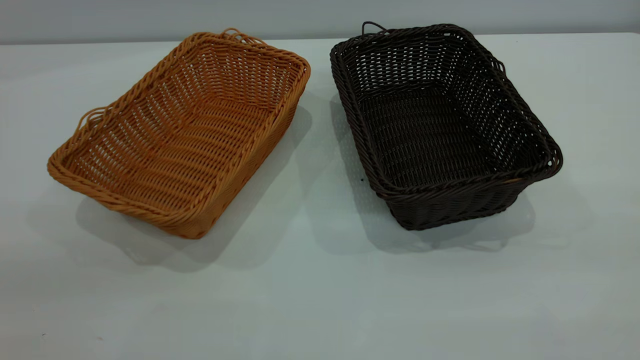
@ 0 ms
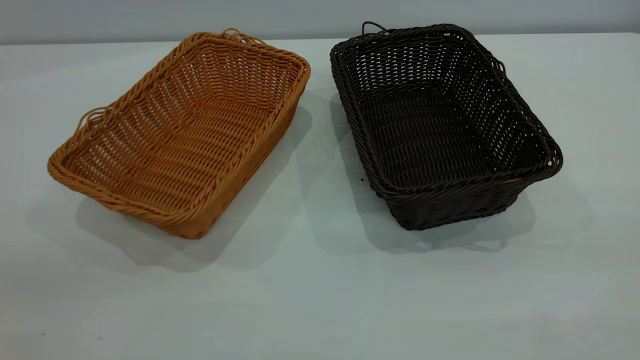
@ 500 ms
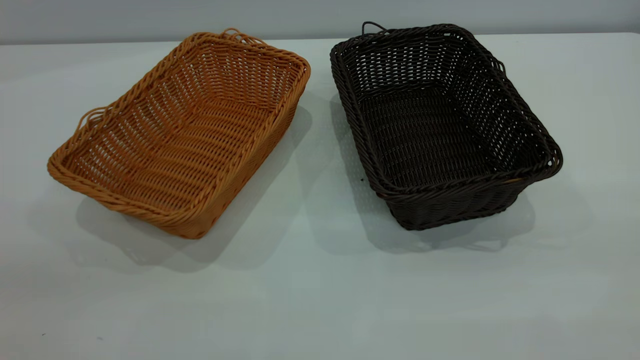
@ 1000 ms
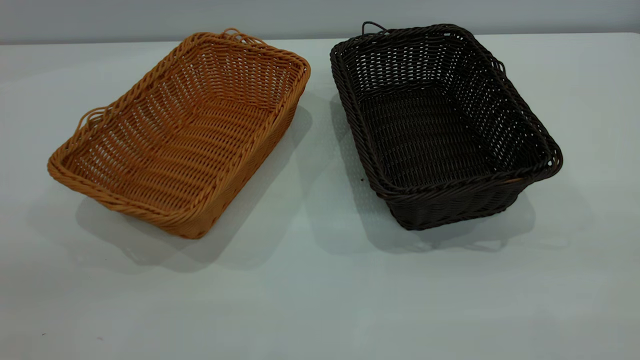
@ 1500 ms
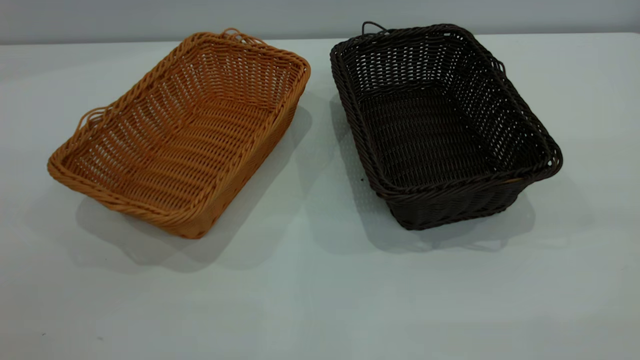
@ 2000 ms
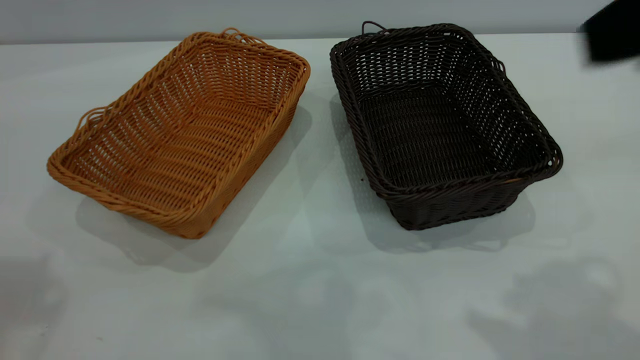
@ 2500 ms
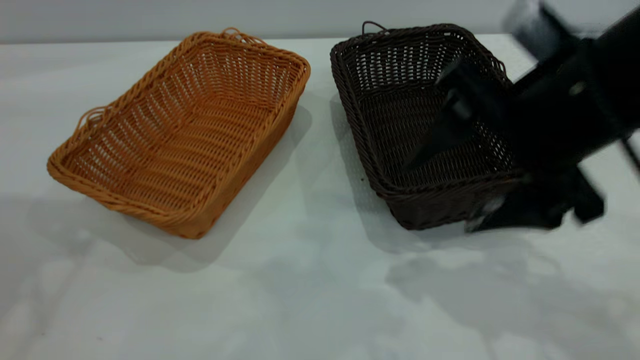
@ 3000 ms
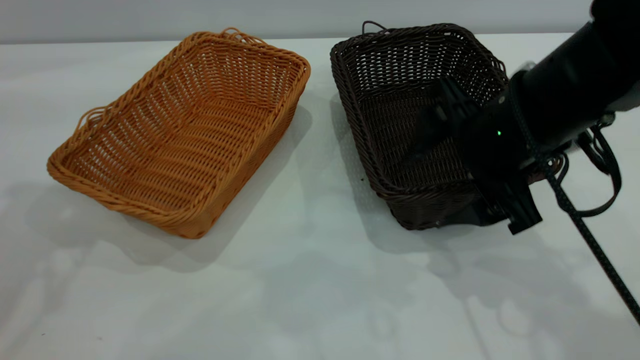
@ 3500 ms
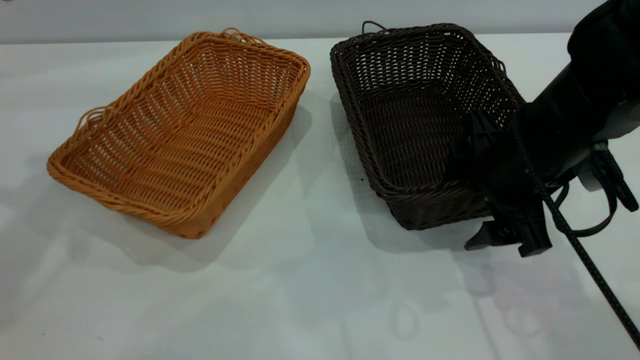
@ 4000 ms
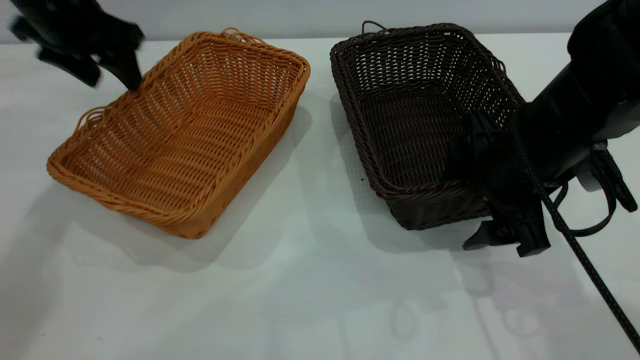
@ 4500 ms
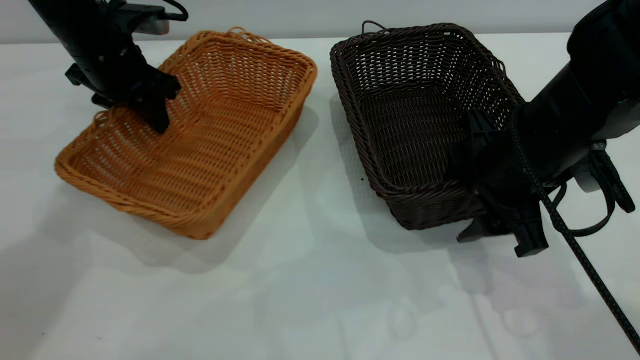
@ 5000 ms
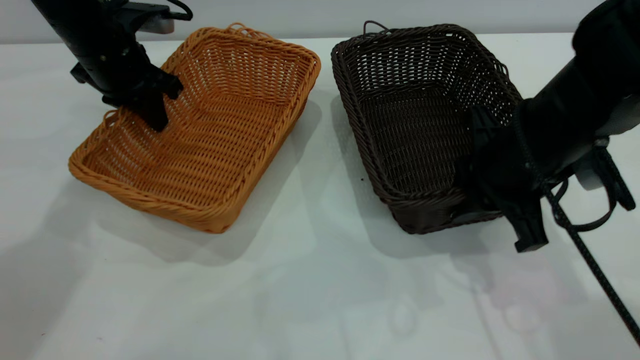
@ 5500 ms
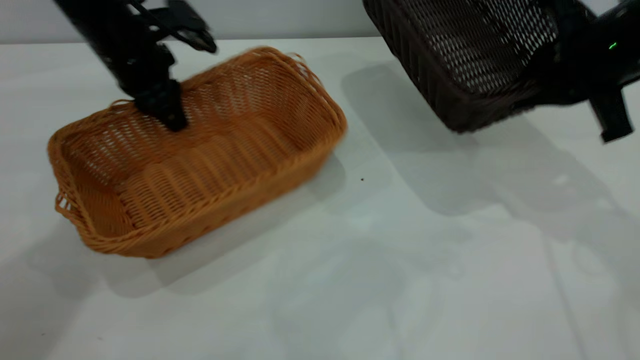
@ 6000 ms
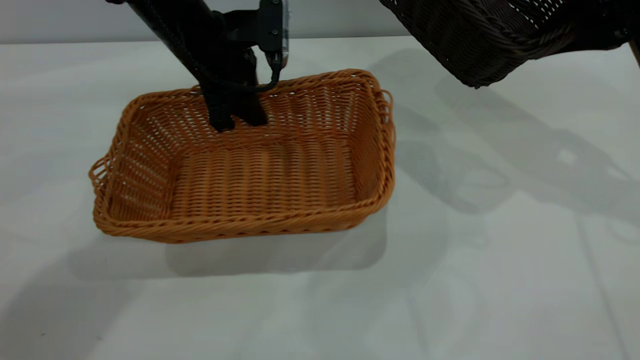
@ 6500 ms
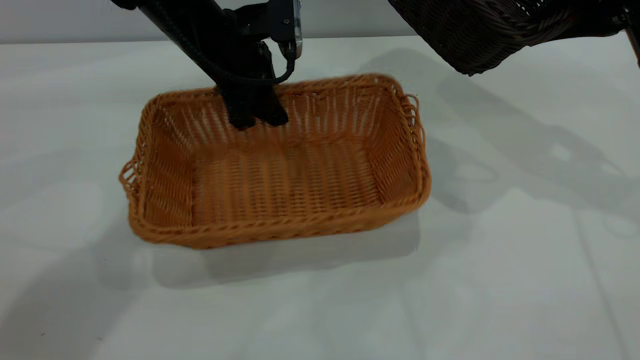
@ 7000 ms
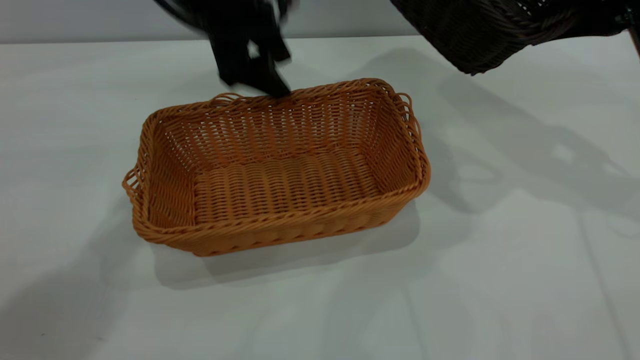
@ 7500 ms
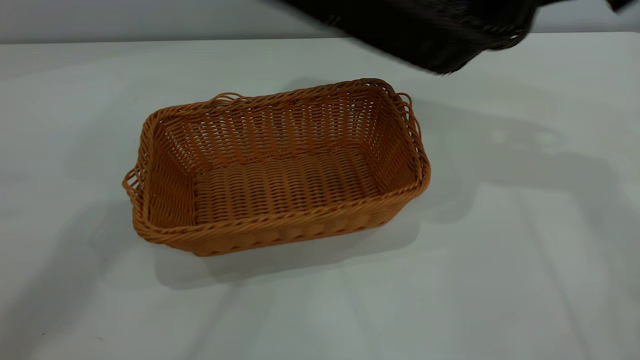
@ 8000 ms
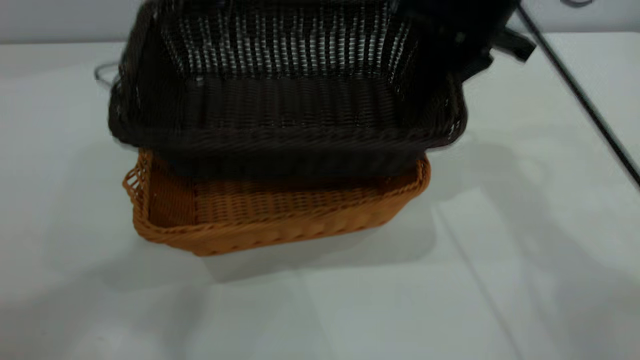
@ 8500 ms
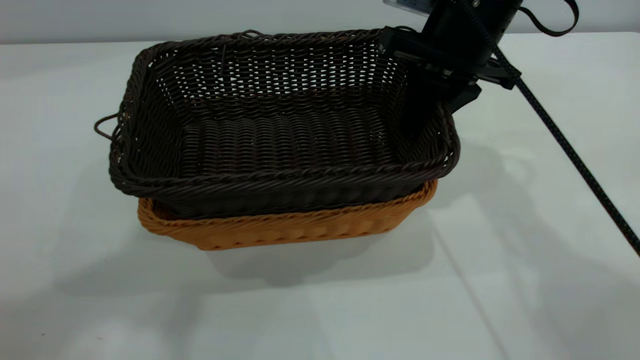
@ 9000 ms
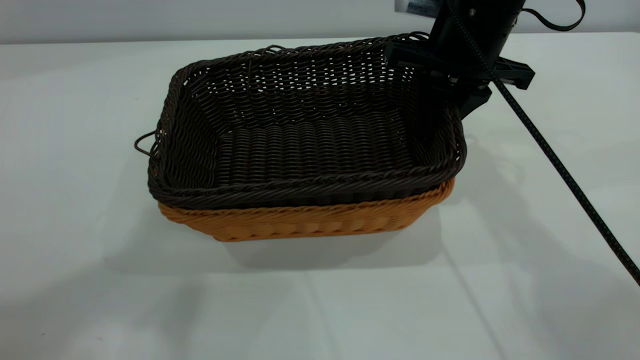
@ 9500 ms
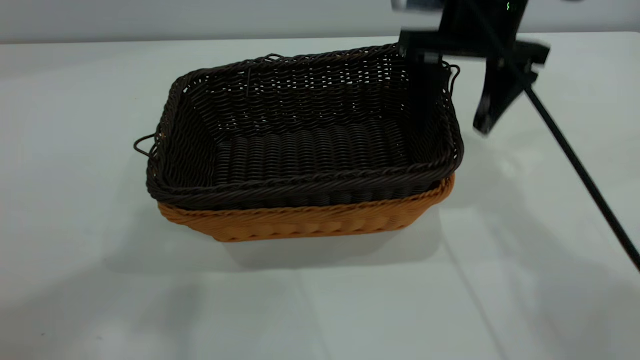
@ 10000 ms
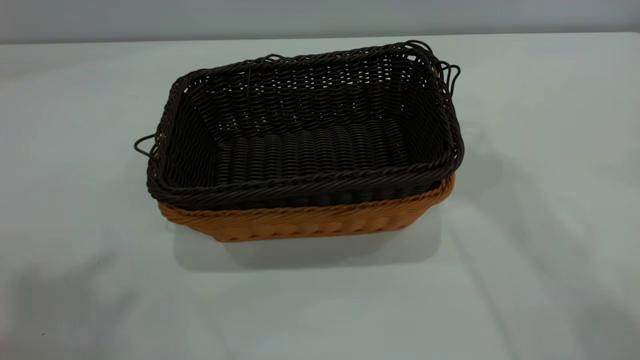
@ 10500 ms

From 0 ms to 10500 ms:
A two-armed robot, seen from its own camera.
Task of the whole recording: the left gripper grasp the brown basket and place it in the center of the table, the right gripper grasp the black basket and place it inside the brown one.
Step, from 0 ms to 5500 ms: Pick up the light basket with the right gripper.
Step, from 6000 ms to 7000 ms: Place the light-colored basket in the center.
Step, from 7500 ms to 10000 ms: Place the dark basket on top of the light basket.
From 2000 ms to 4000 ms: The right gripper heads downward and forward, covering about 35 cm.
From 4000 ms to 6500 ms: The left gripper moves downward, to the right and forward, some 25 cm, and closes up. The right gripper goes about 20 cm to the right, upward and forward, and closes.
From 6500 ms to 8500 ms: The left gripper goes about 50 cm upward and backward, and opens; the right gripper heads to the left, covering about 15 cm.
From 8500 ms to 10500 ms: The right gripper is displaced upward by some 25 cm, and opens up; the left gripper goes roughly 10 cm backward and to the left.

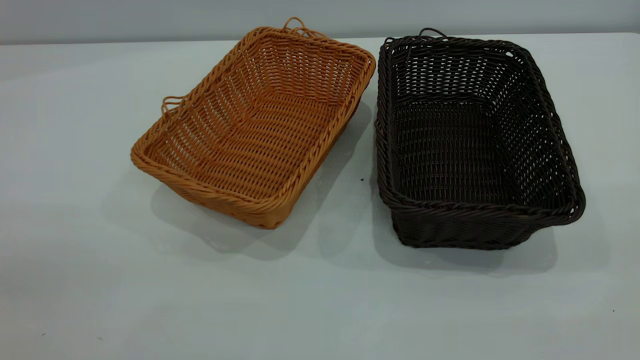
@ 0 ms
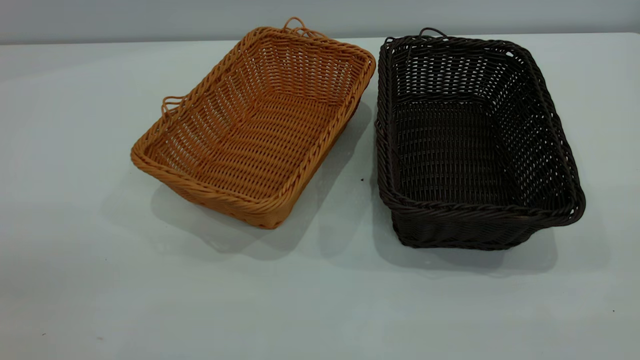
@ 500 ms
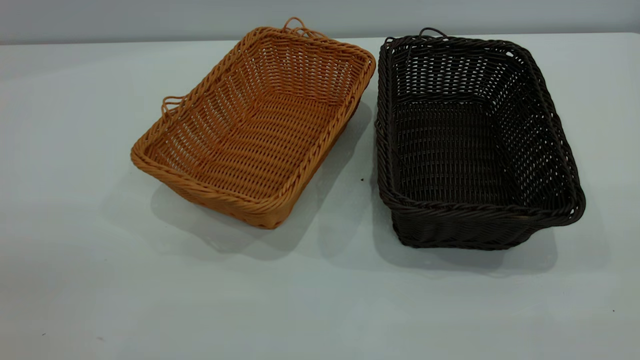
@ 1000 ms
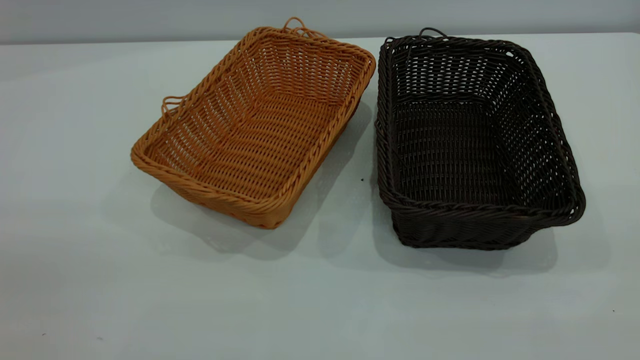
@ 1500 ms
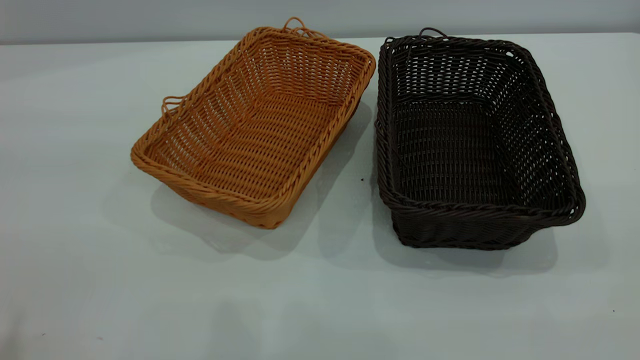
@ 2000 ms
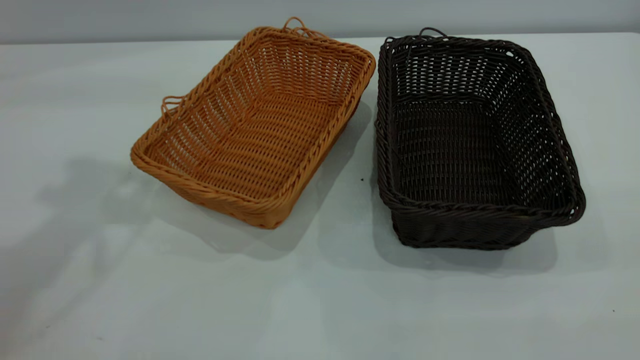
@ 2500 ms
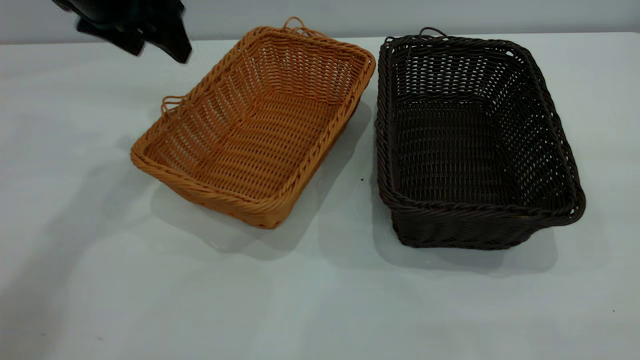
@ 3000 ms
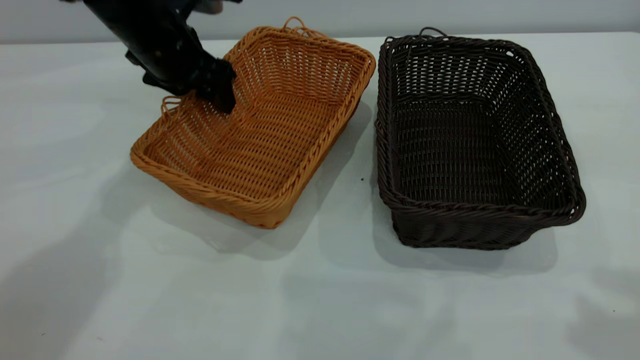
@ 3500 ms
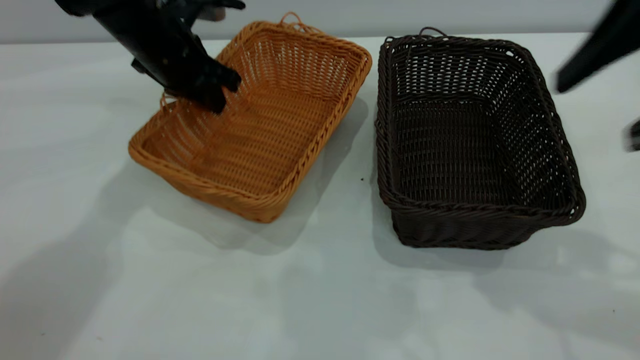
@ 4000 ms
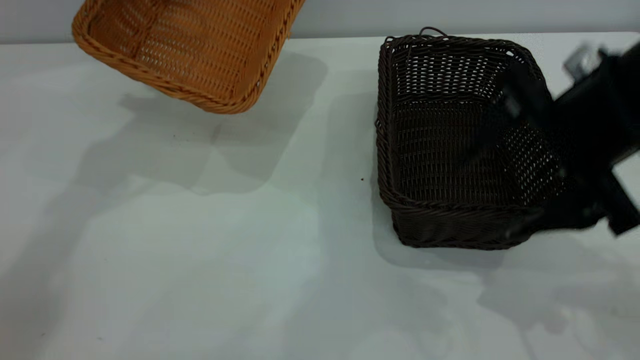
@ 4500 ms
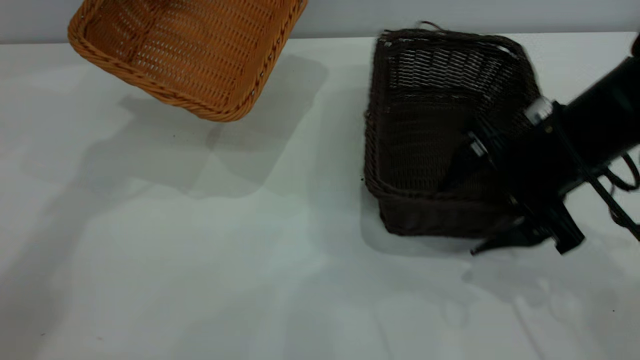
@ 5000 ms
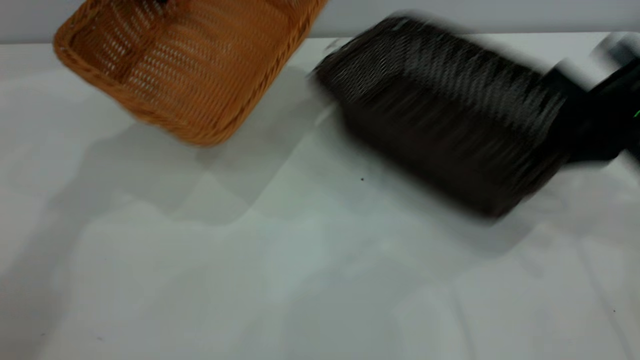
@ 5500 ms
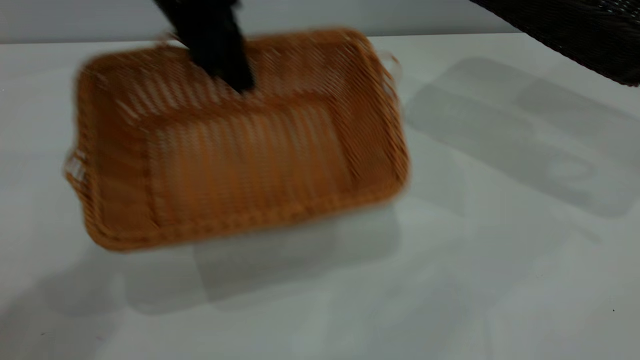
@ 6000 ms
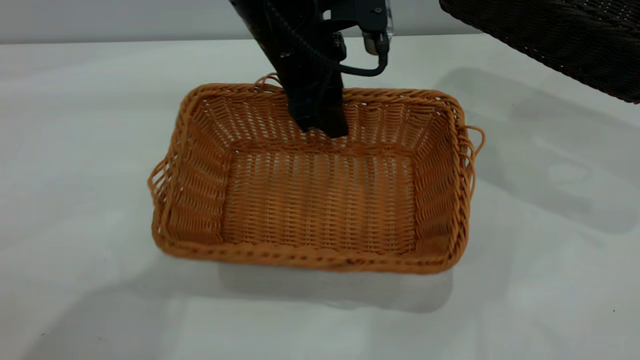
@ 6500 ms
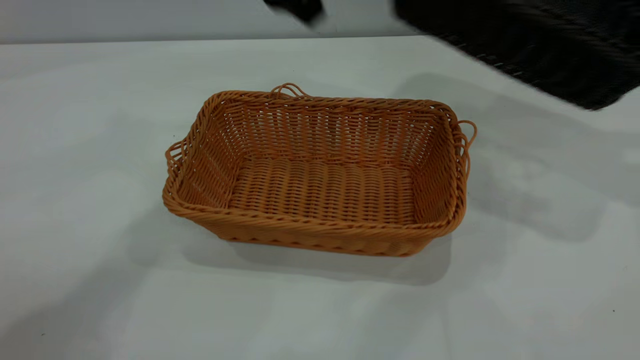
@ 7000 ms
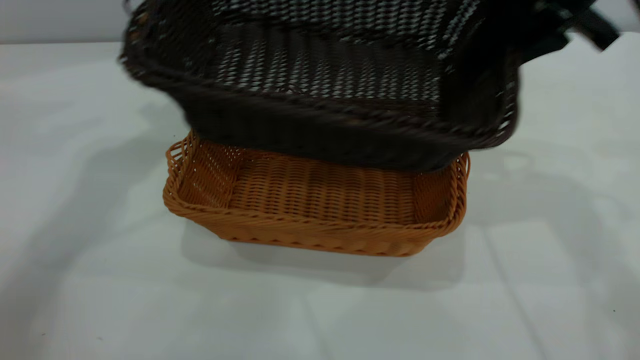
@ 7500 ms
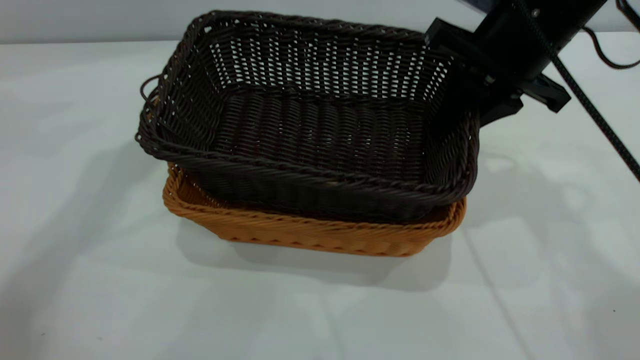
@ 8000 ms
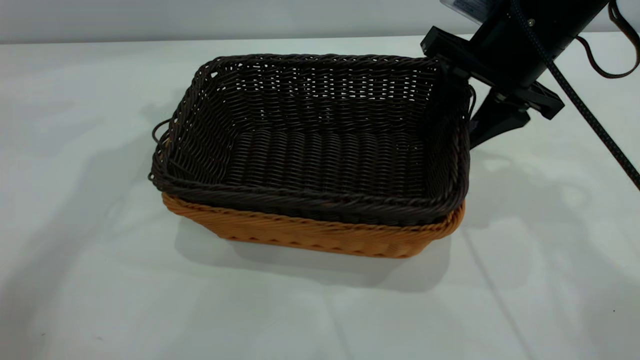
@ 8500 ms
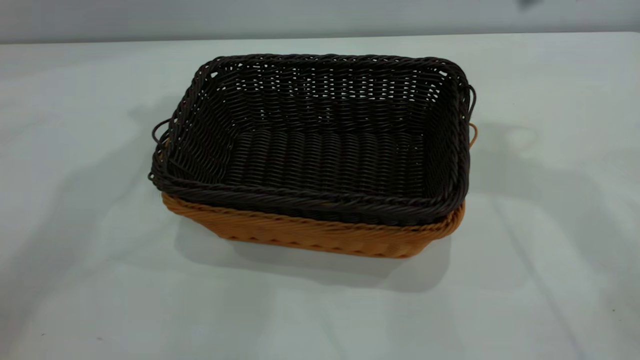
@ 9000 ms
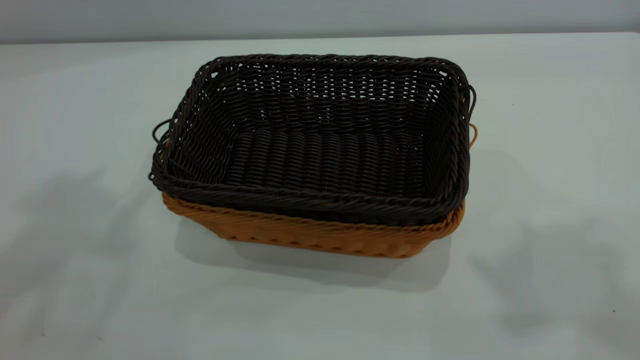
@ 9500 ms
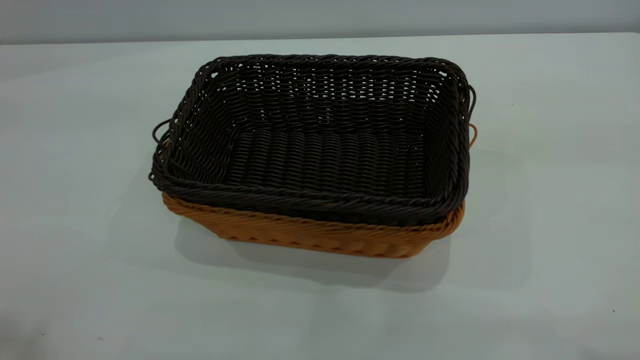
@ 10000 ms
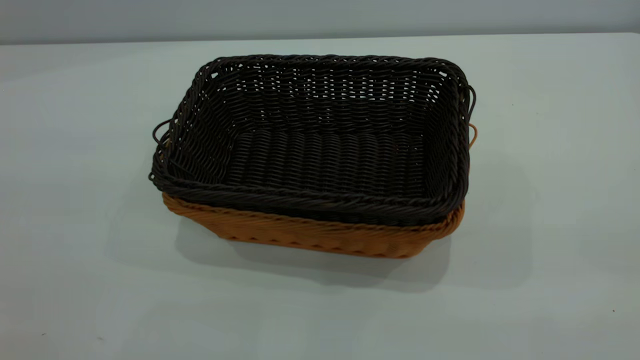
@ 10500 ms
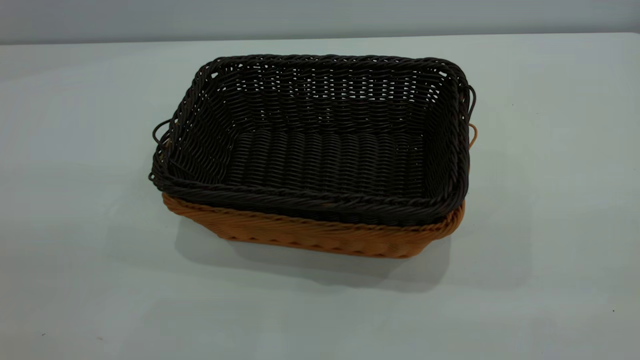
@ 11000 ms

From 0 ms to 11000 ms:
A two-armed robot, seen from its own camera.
Task of the whole recording: the left gripper grasp the brown basket and place it in the center of the table, the right gripper grasp the black basket and place it inside the brown one.
Step, from 0 ms to 4000 ms: Pick up the light basket with the right gripper.
Step, from 4500 ms to 6500 ms: Place the light-colored basket in the center.
Step, from 7000 ms to 8500 ms: Place the dark basket on top of the light basket.
From 2000 ms to 3500 ms: The right gripper travels forward by approximately 15 cm, while the left gripper goes some 40 cm forward and downward.
From 3500 ms to 5500 ms: The left gripper travels upward by roughly 10 cm, and closes up. The right gripper goes approximately 25 cm downward and forward, and closes its fingers.
From 5500 ms to 7500 ms: The right gripper moves to the left and upward, roughly 15 cm. The left gripper travels upward by approximately 10 cm, goes to the right and returns, some 20 cm each way, and opens its fingers.
From 7500 ms to 9000 ms: Both grippers travel together upward, approximately 10 cm. The right gripper opens its fingers.
From 9000 ms to 11000 ms: Both grippers move backward, roughly 40 cm.
